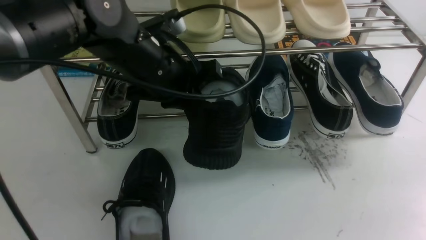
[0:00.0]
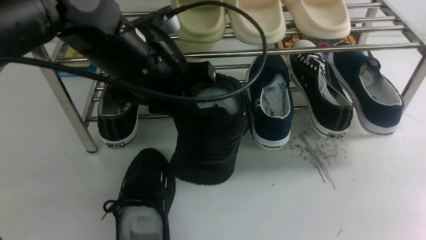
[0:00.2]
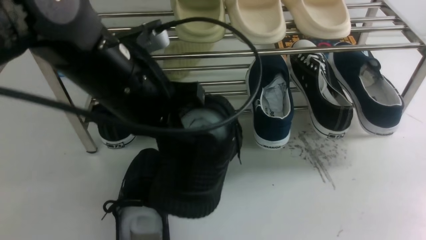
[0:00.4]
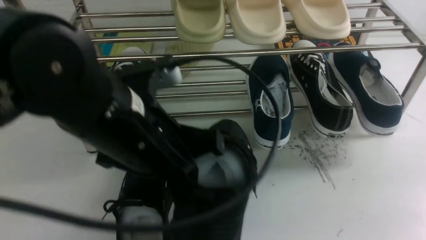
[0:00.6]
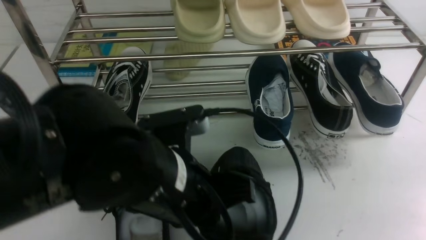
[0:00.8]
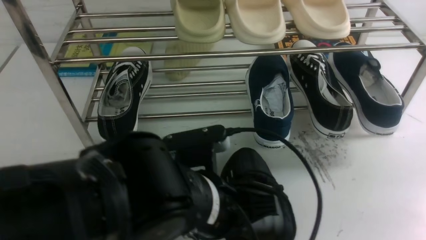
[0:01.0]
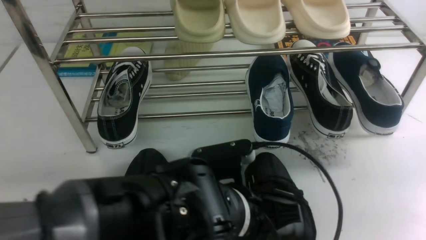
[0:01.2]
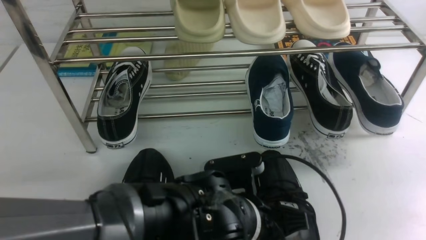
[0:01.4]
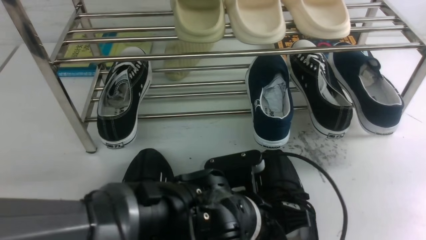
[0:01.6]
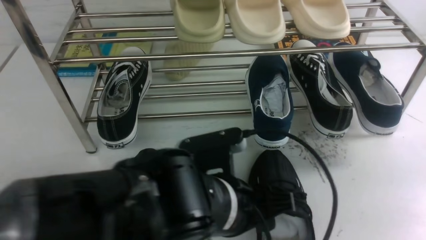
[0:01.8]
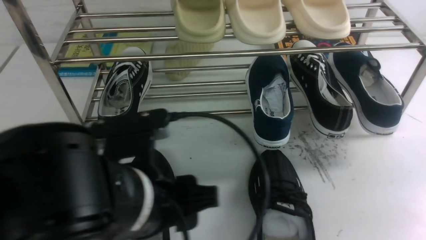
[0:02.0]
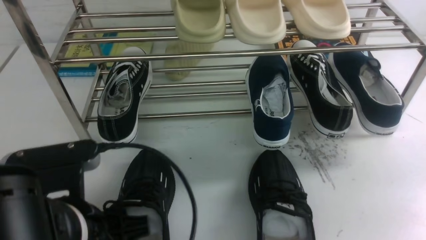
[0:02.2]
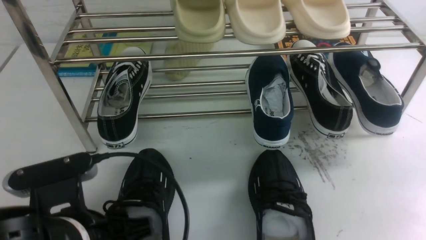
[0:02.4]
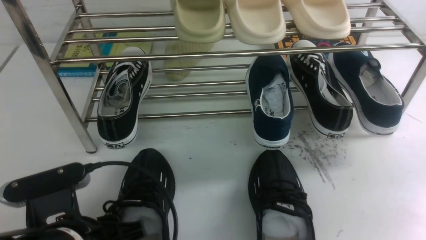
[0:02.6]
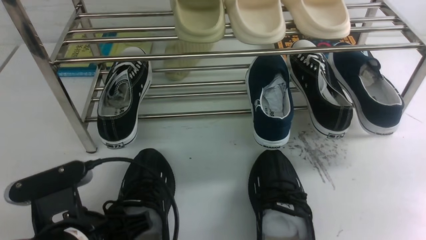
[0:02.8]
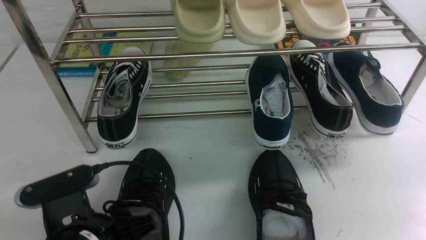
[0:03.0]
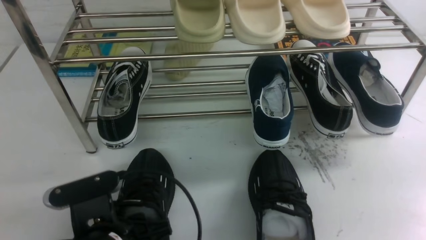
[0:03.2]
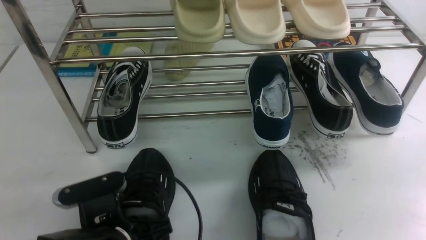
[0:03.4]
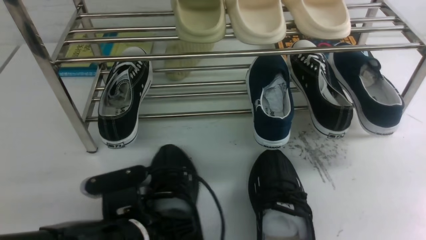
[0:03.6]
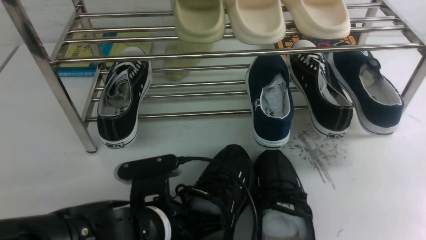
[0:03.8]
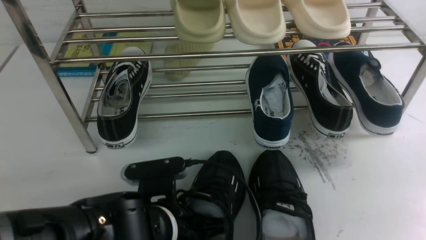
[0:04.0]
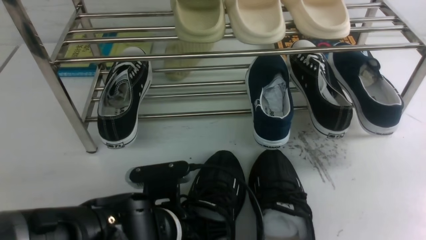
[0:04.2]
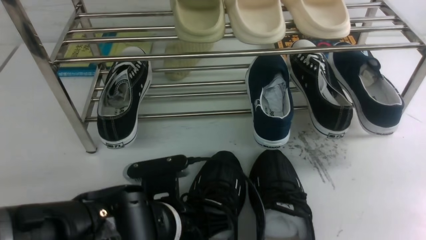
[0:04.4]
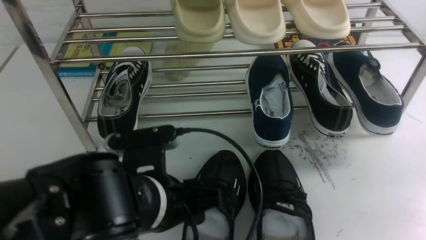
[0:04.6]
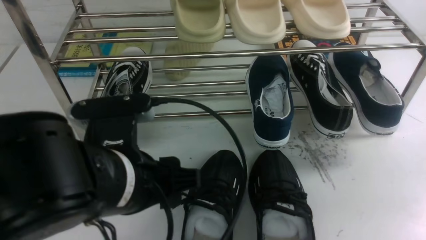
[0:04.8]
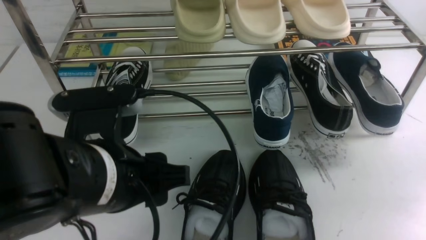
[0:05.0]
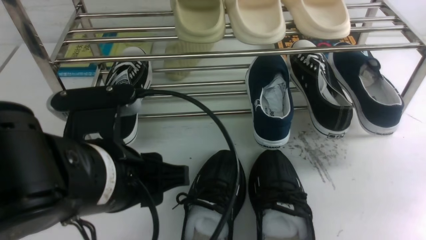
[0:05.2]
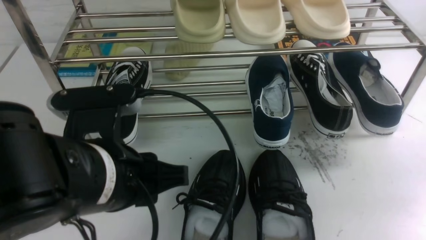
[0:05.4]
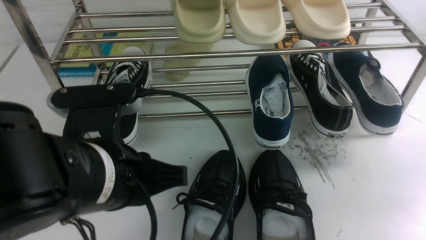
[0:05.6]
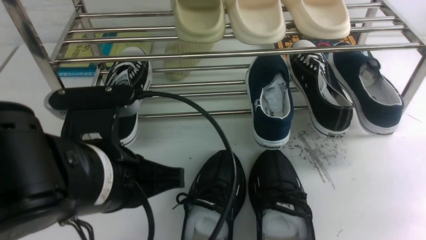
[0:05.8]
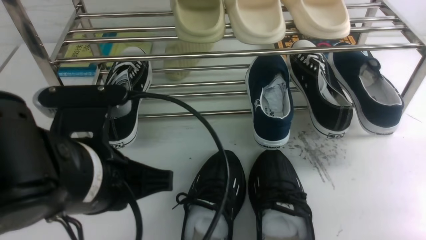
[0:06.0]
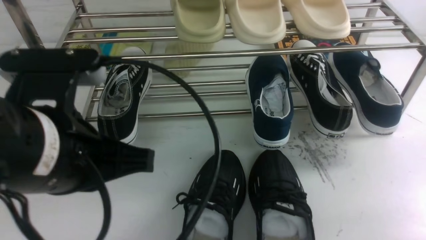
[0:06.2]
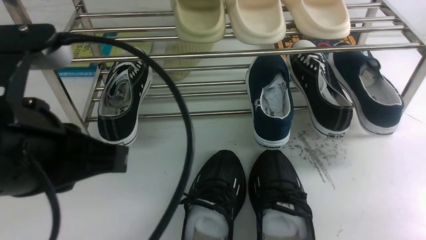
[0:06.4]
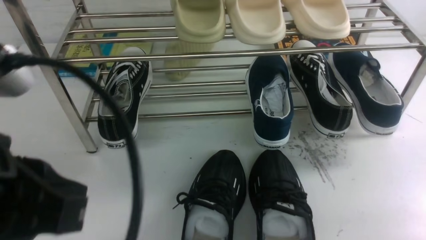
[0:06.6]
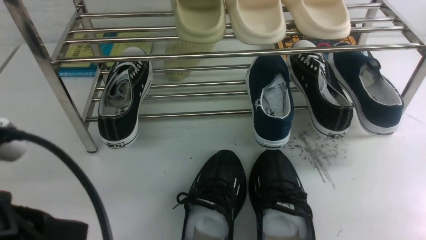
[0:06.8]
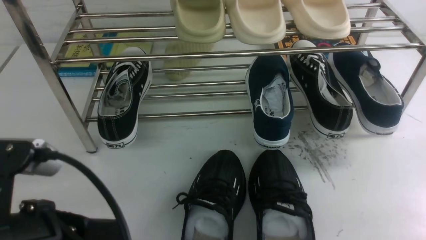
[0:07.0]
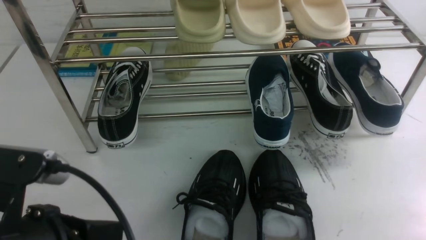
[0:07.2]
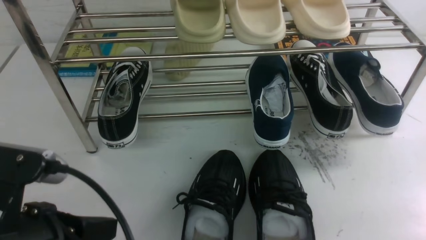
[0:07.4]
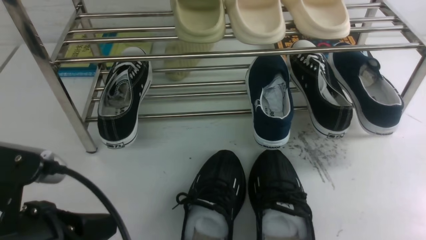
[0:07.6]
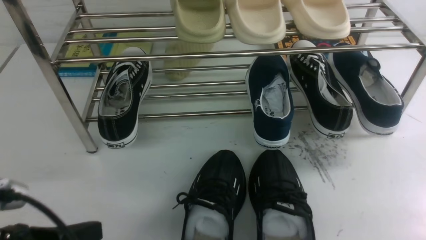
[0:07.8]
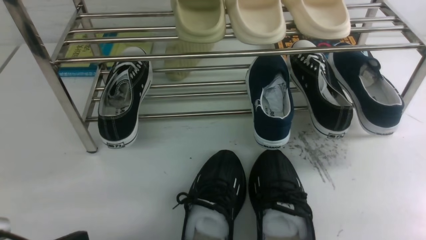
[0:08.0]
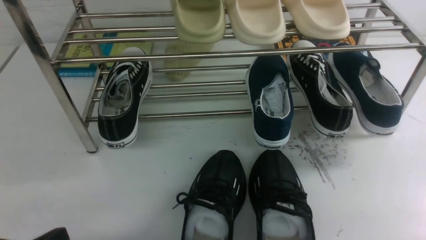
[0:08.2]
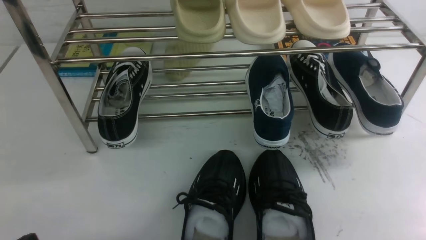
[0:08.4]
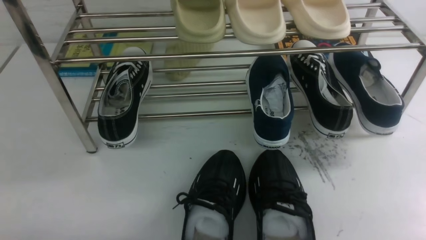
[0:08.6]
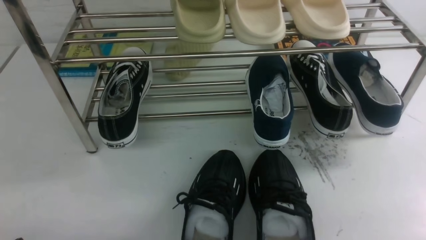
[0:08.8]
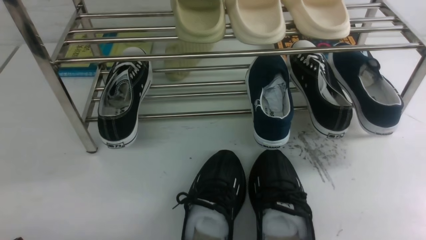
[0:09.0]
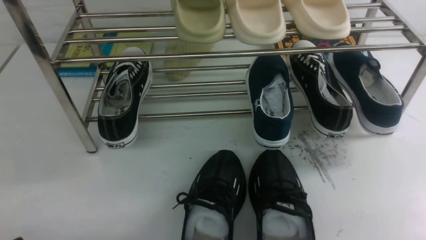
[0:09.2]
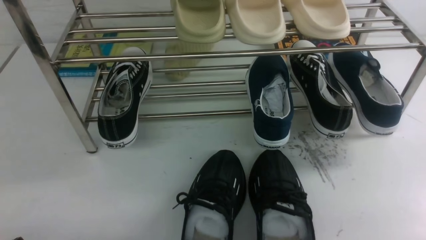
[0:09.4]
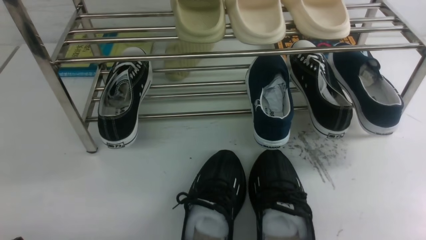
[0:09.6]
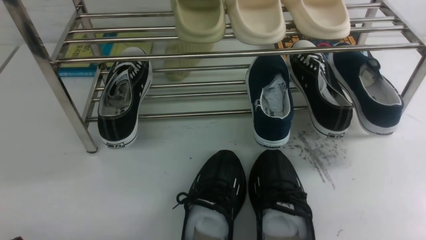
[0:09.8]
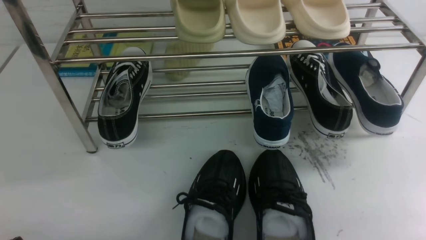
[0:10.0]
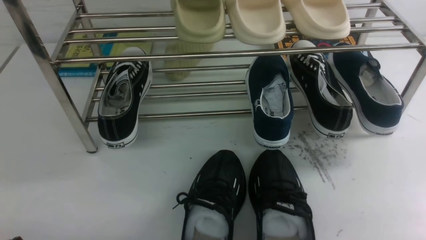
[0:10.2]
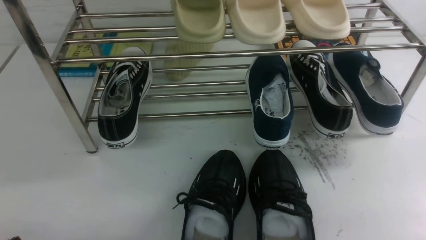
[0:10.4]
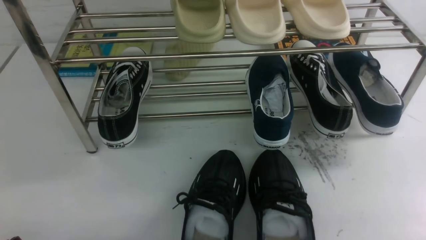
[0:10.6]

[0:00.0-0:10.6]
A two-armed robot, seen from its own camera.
Step, 0:00.0 to 0:02.2: Use your left arm to remove the clamped shoe from the shoe rack and put it down.
0:00.0 to 0:01.6: The left gripper shifts roughly 20 cm backward, downward and to the right, and opens its fingers.
0:01.6 to 0:03.0: The left gripper shifts approximately 15 cm to the left.
0:03.0 to 0:04.6: The left gripper shifts approximately 5 cm to the right, and closes, then reopens.
0:04.6 to 0:06.0: The left gripper is displaced upward by about 10 cm, and closes up. The right gripper moves downward, approximately 10 cm.
0:06.0 to 0:07.6: The left gripper moves to the left, backward and downward, about 10 cm.
0:07.6 to 0:09.0: The left gripper moves downward and to the left, about 15 cm.
0:09.0 to 0:10.6: The two grippers keep their place.
